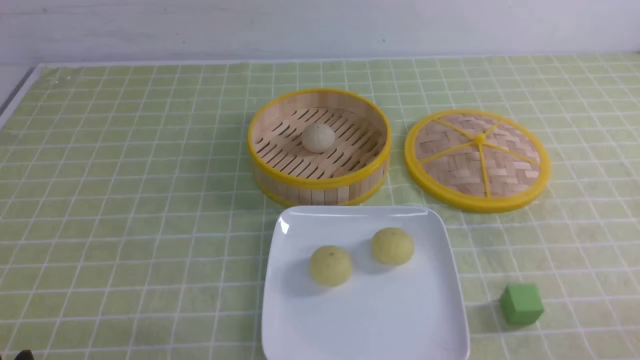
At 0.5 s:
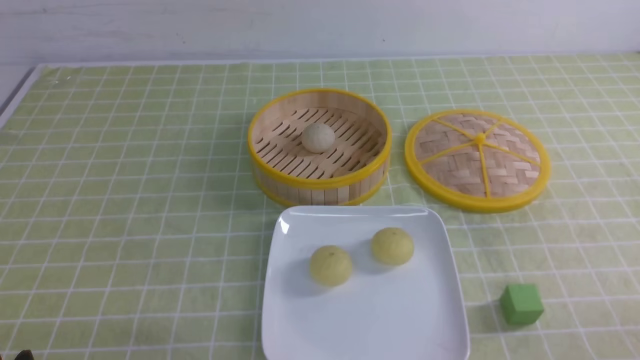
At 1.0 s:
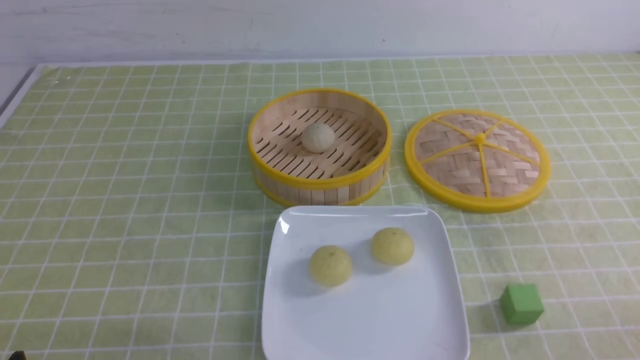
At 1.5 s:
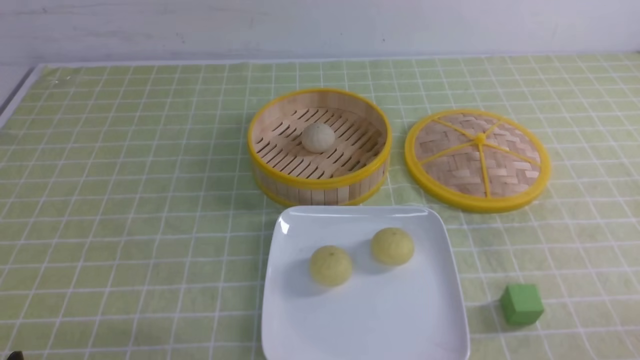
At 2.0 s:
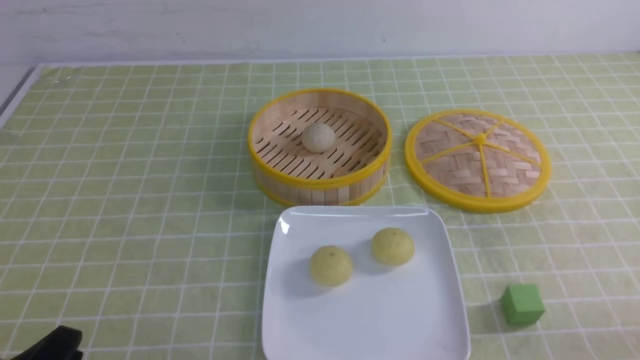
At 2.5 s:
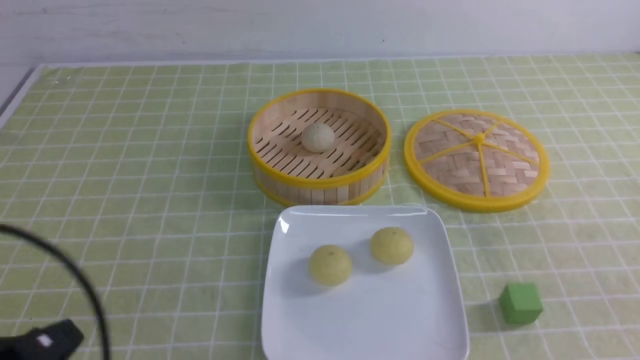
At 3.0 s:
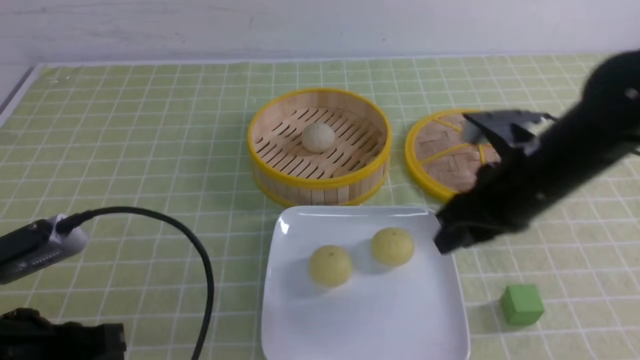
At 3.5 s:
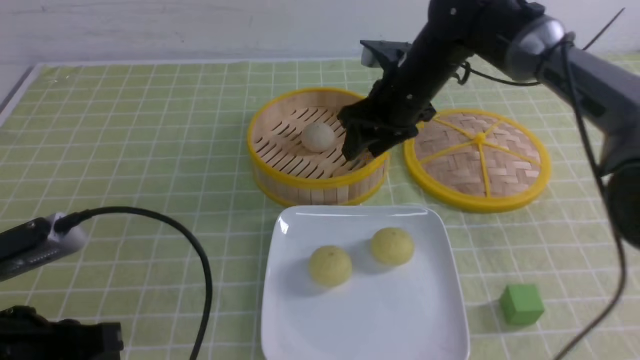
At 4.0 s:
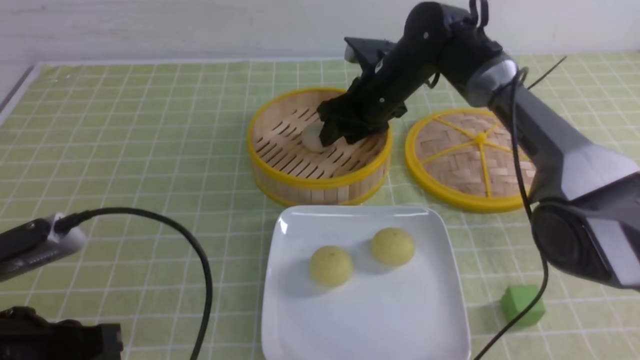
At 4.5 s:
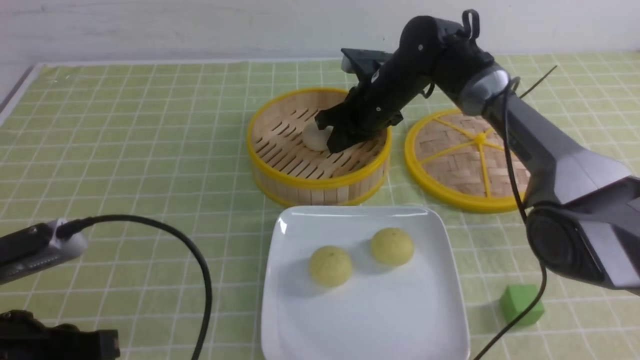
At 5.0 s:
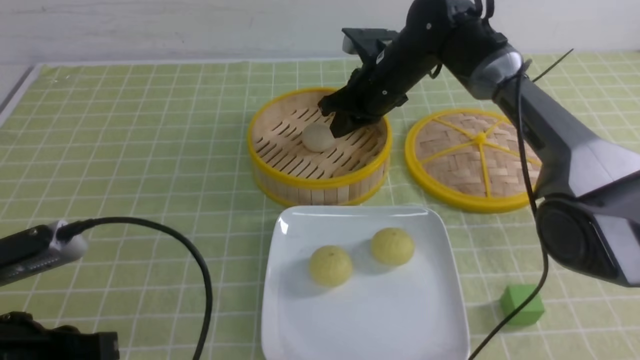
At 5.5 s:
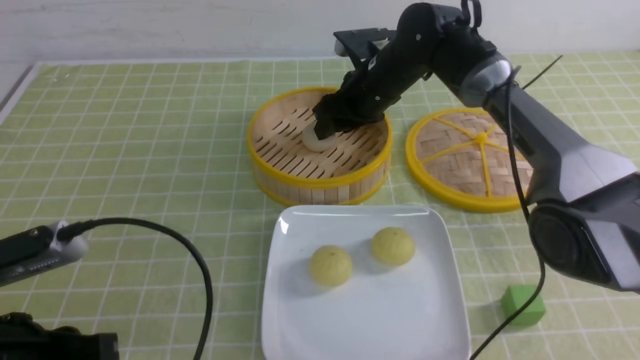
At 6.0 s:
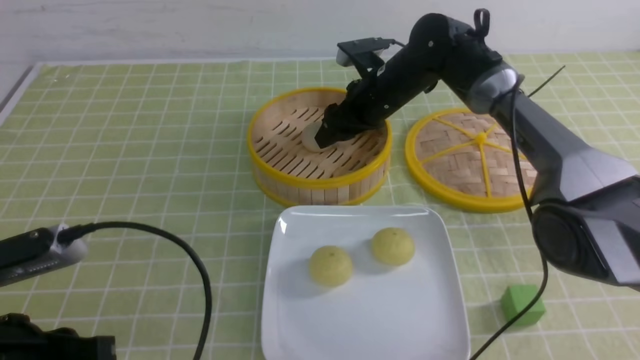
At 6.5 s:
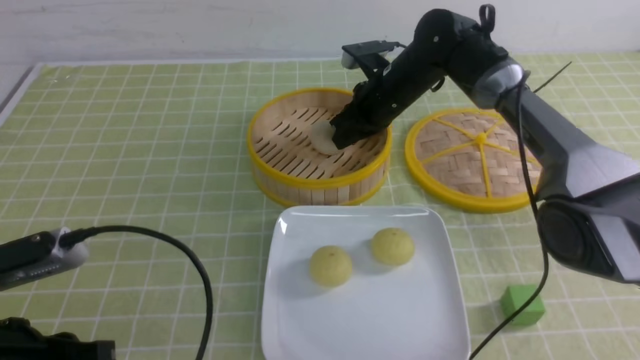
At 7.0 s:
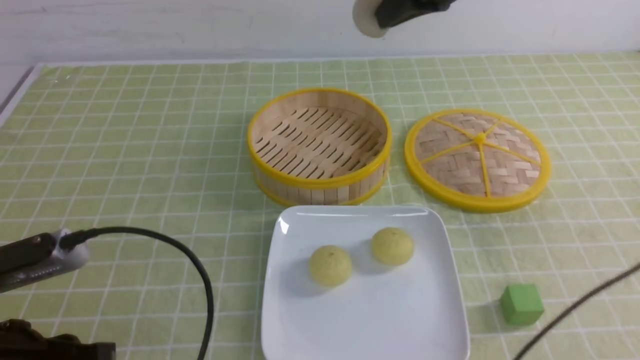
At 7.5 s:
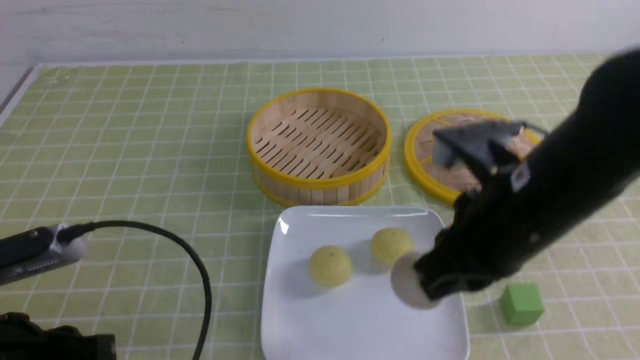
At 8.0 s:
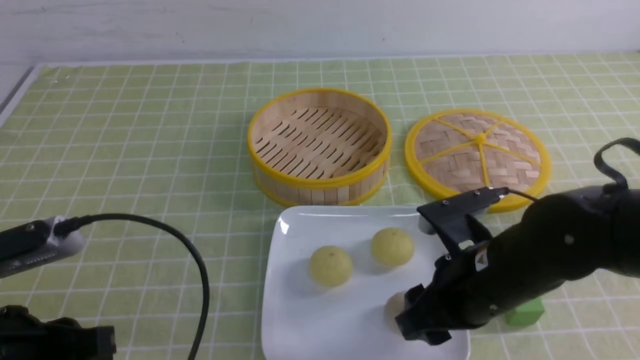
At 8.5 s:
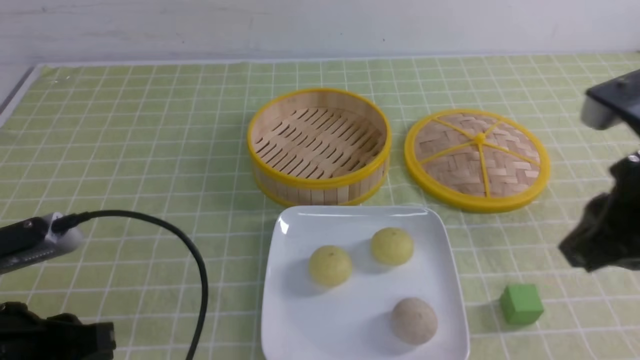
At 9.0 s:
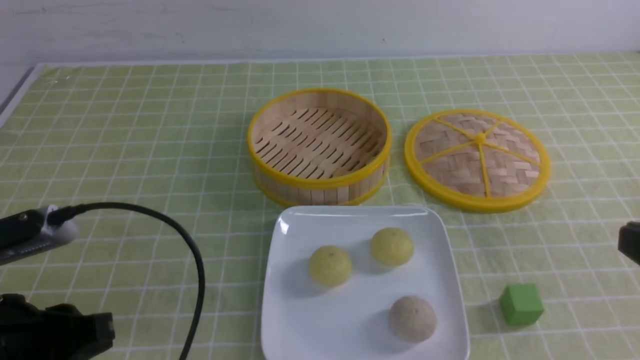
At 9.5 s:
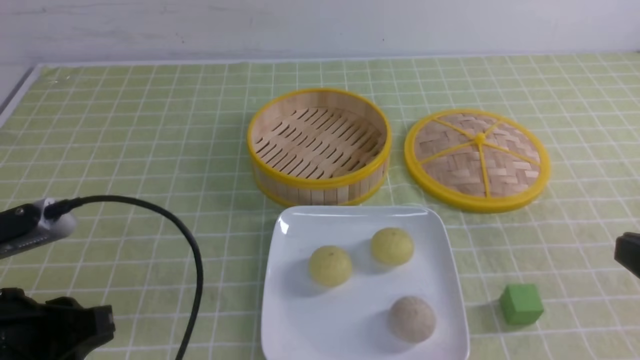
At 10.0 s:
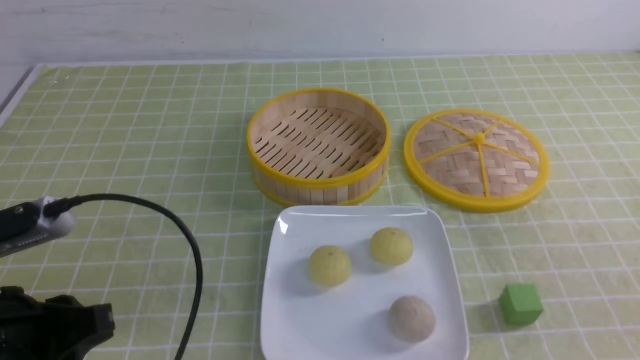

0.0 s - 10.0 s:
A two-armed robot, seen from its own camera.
Step, 0.0 s - 6.0 s: use the right arm to grab the steamed stuffed bun that is closest to it.
Step, 6.5 s - 8.0 s: use the right arm to put the steamed stuffed bun into the plate.
2.0 s - 4.0 s: The left gripper travels forward and upward by roughly 10 cm, and closes. Meanwhile the right gripper moves forward and to the left, some 50 cm, and opens.
4.0 s - 6.0 s: The right gripper closes and opens again.
6.0 s - 8.0 s: The right gripper heads backward, covering some 30 cm, and closes and opens again.
8.0 s - 10.0 s: The right gripper goes roughly 20 cm to the right, backward and upward, and closes its fingers.

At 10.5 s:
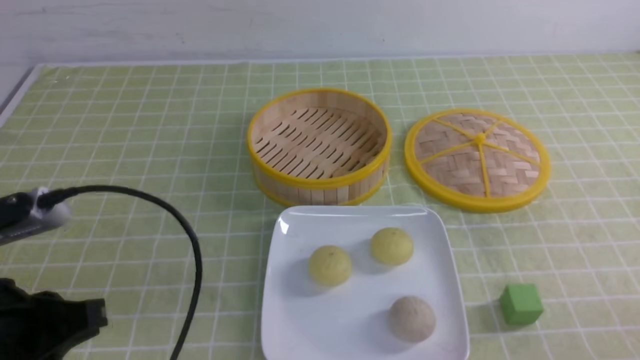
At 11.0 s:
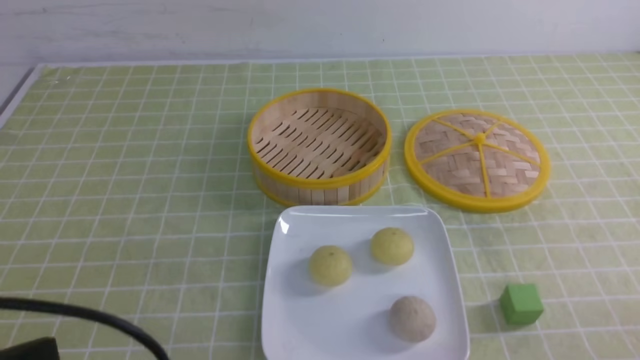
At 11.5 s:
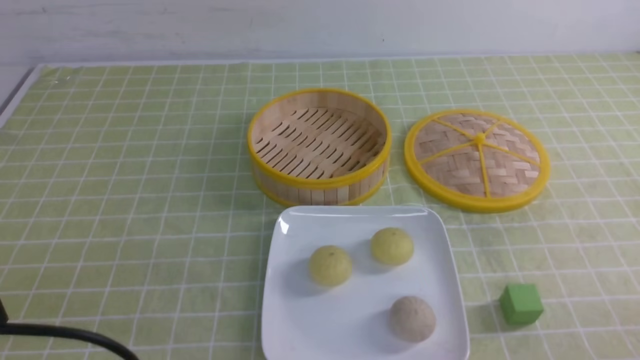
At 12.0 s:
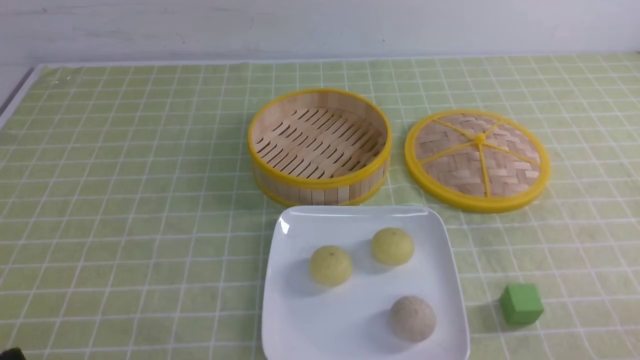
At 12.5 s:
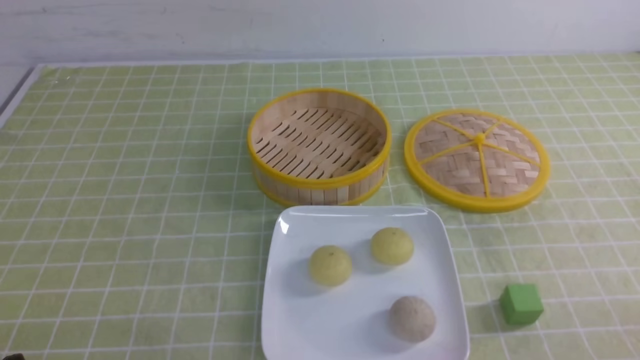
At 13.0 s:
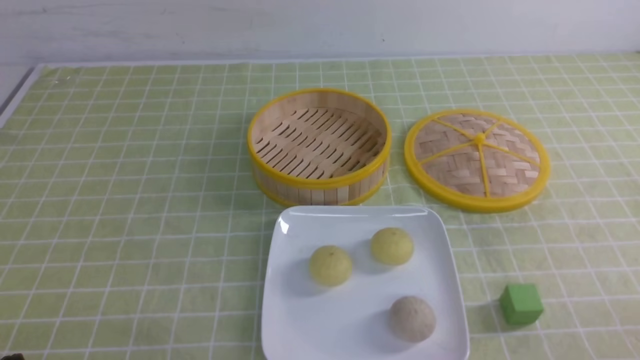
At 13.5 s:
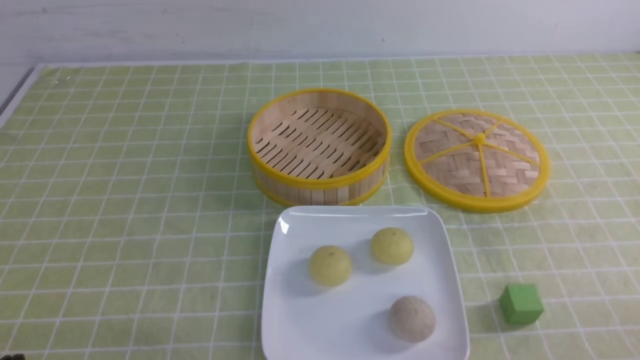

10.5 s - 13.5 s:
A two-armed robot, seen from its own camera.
10.5 s - 12.0 s: The left gripper travels backward by approximately 10 cm, and closes its fingers.

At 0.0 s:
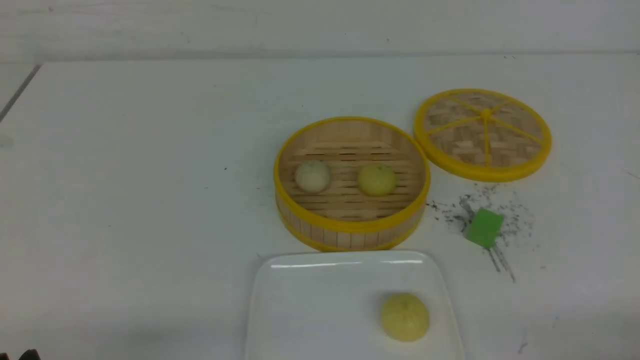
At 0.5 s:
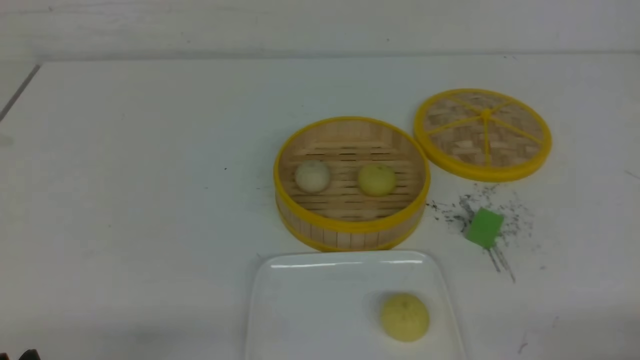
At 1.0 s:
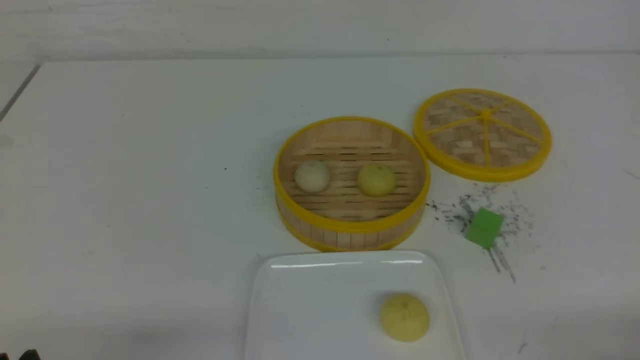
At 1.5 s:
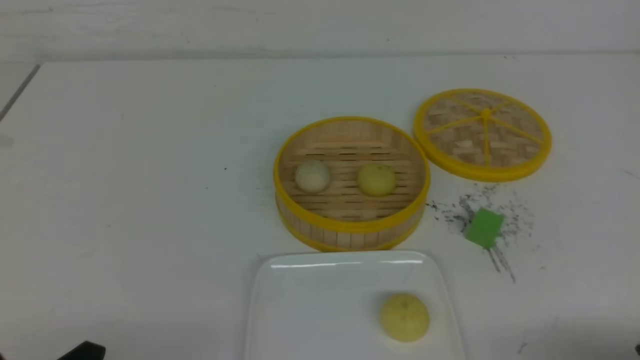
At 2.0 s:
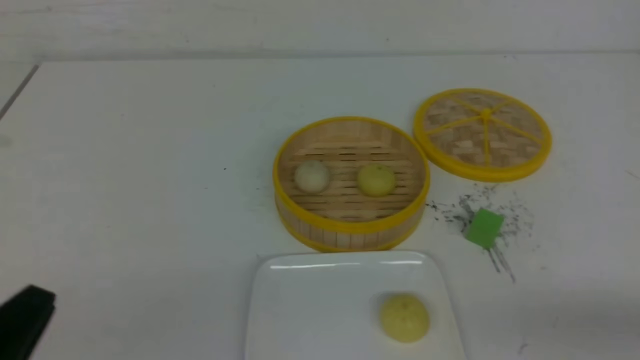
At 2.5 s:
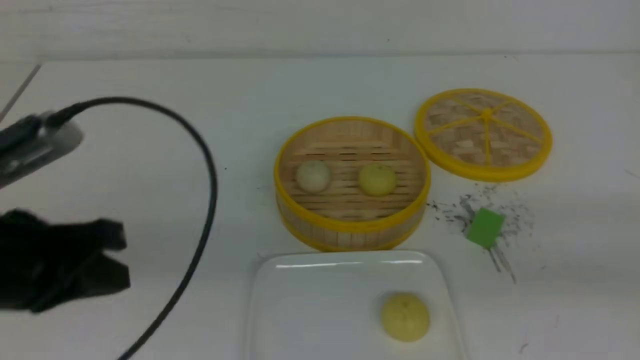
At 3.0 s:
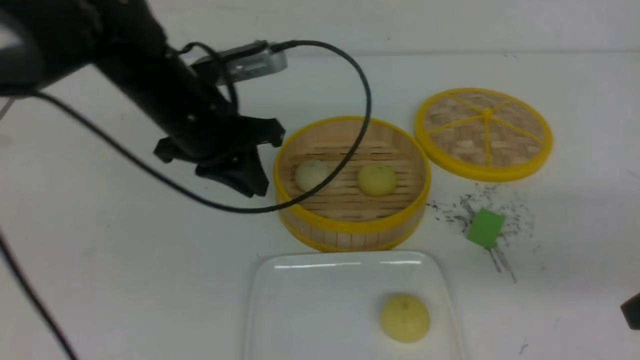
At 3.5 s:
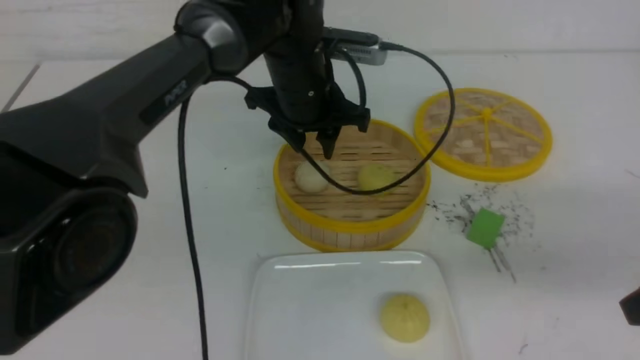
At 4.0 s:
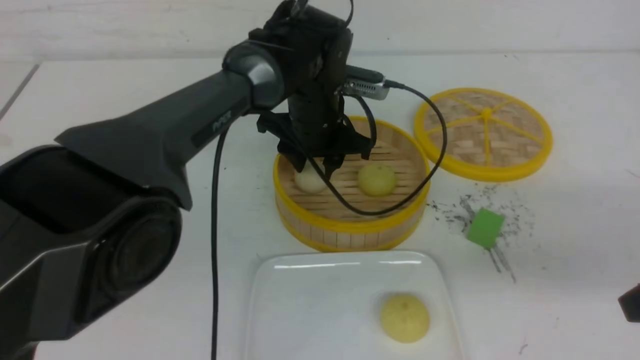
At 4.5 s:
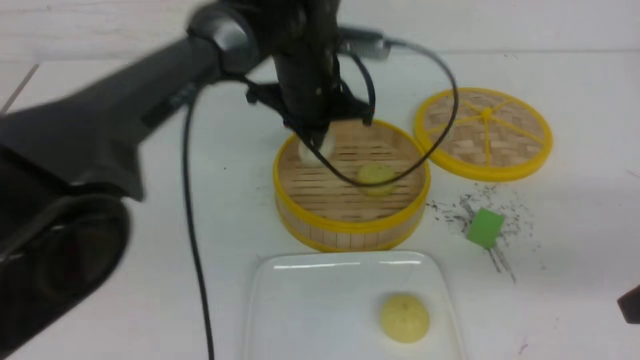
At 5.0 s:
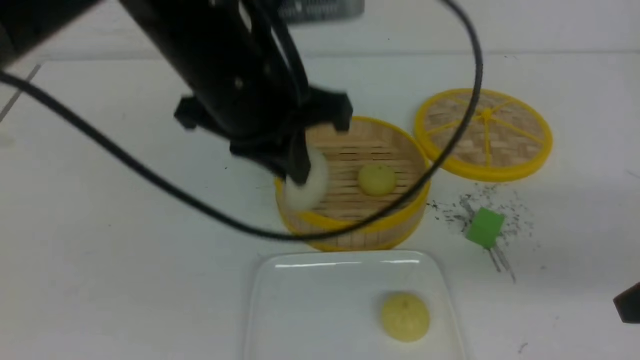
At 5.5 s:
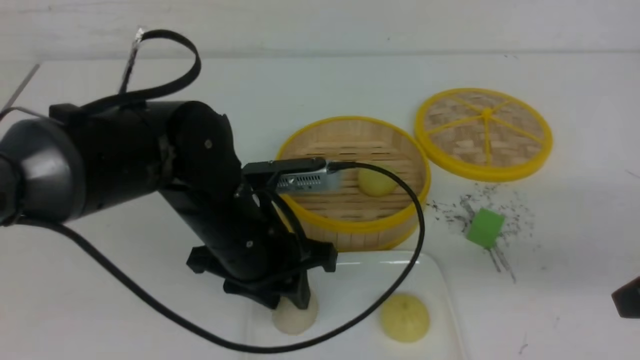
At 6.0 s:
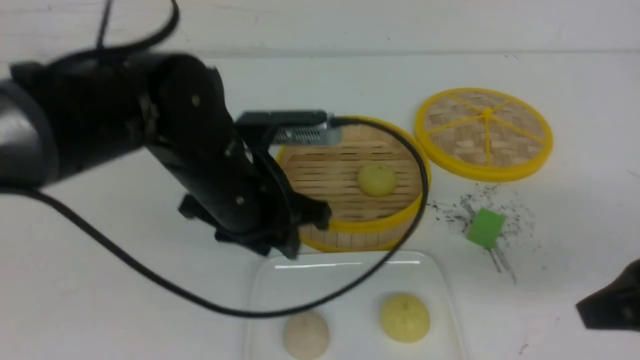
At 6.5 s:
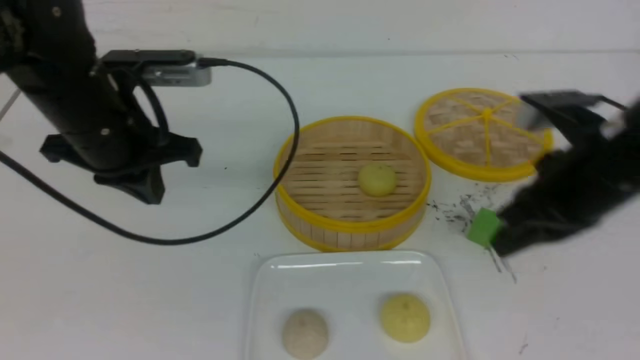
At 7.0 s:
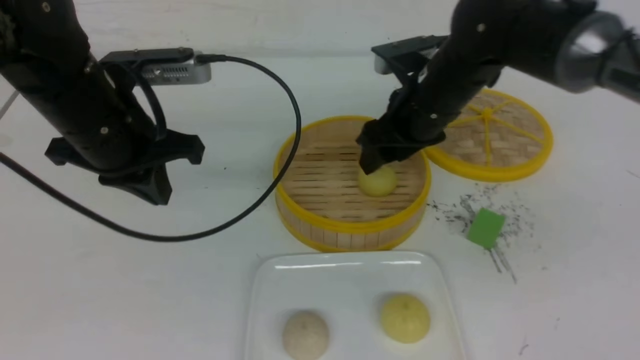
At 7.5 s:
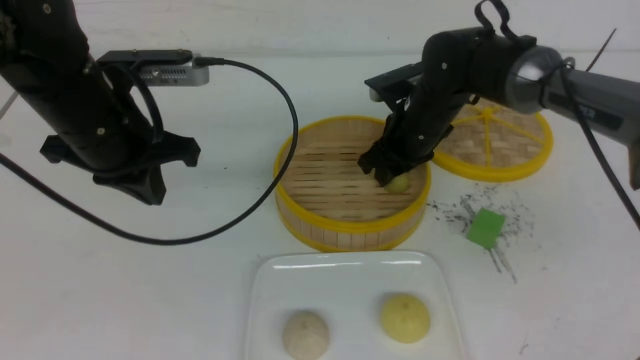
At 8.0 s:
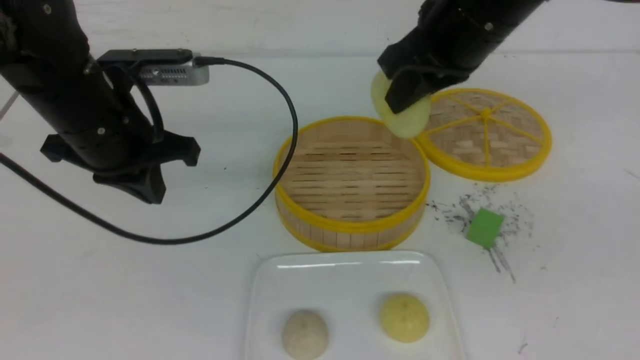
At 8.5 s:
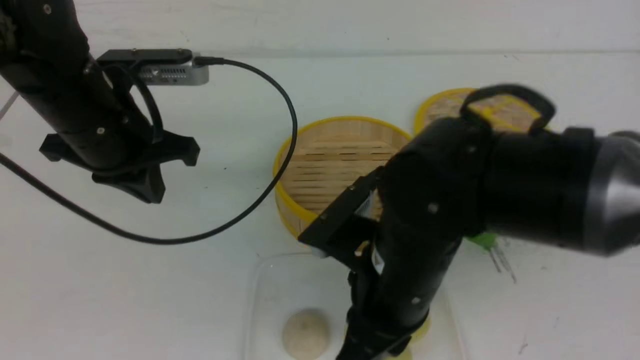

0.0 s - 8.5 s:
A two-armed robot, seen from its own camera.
Step, 0.0 s - 4.0 s: use the left arm to grab the steamed stuffed bun that is closest to it.
Step, 4.5 s - 5.5 s: use the left arm to put the steamed stuffed bun into the plate.
Step, 6.0 s - 7.5 s: use the right arm to grab the steamed stuffed bun that is closest to it.
0.0 s - 2.0 s: The left gripper shifts about 5 cm upward.
2.0 s - 4.0 s: The right gripper travels forward by roughly 10 cm; the left gripper moves forward and to the right, about 40 cm, and opens its fingers.
4.0 s - 6.5 s: The right gripper travels forward and to the left by some 15 cm. Meanwhile the left gripper goes approximately 20 cm to the left, backward and upward, and closes up.
6.5 s - 8.5 s: The right gripper travels to the left by some 15 cm, travels forward and back again, approximately 15 cm each way, and opens, then closes again.
